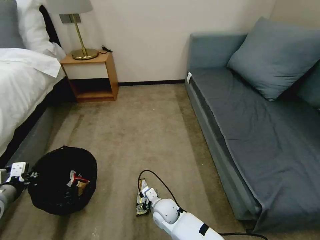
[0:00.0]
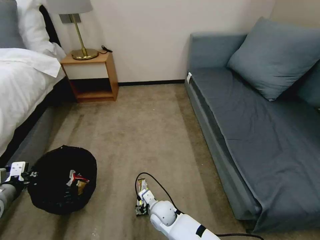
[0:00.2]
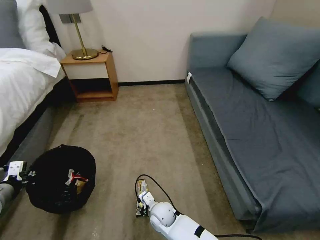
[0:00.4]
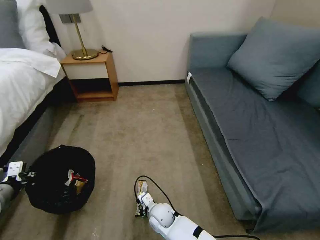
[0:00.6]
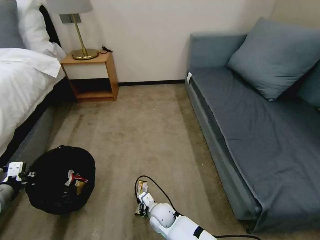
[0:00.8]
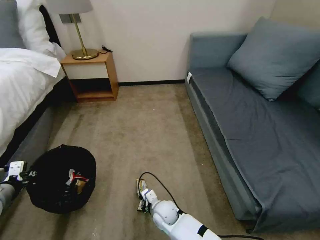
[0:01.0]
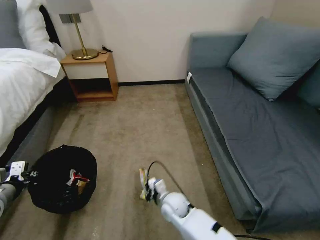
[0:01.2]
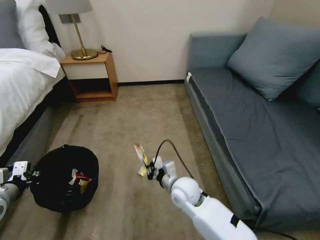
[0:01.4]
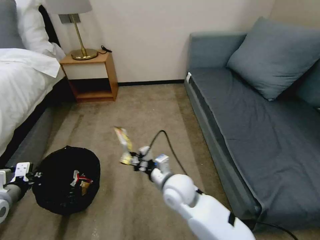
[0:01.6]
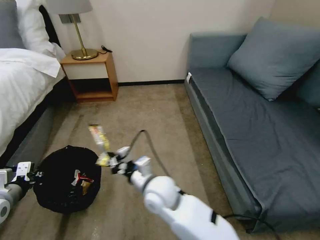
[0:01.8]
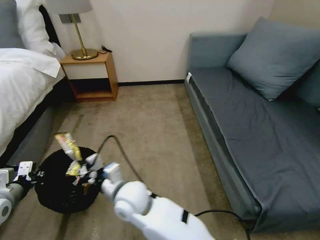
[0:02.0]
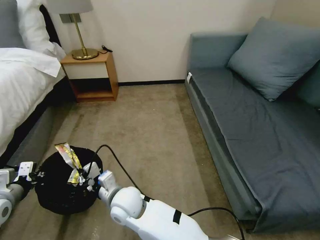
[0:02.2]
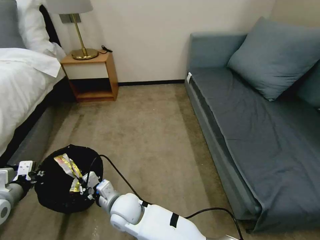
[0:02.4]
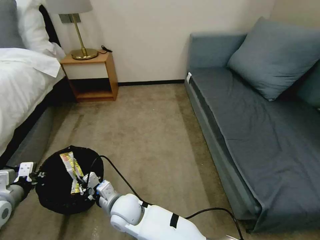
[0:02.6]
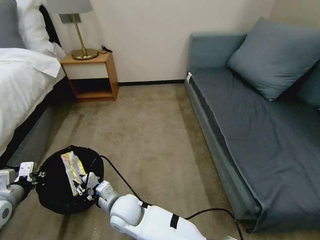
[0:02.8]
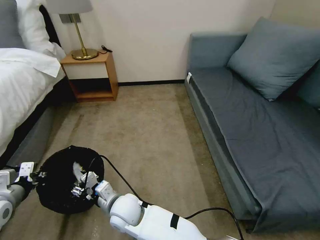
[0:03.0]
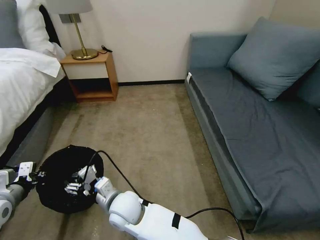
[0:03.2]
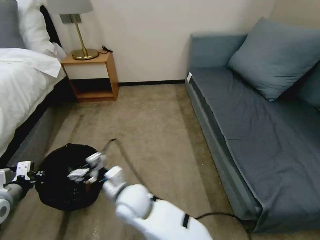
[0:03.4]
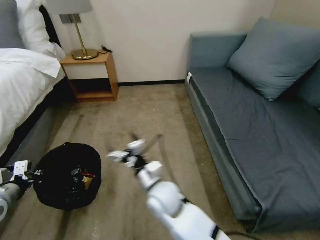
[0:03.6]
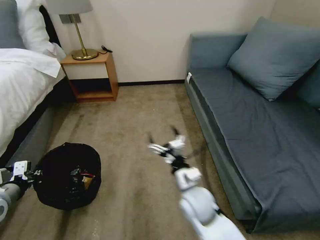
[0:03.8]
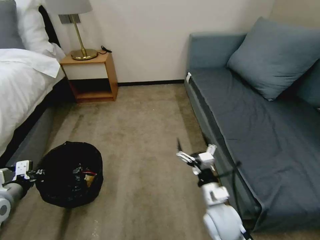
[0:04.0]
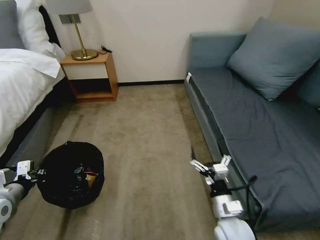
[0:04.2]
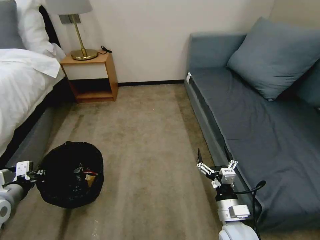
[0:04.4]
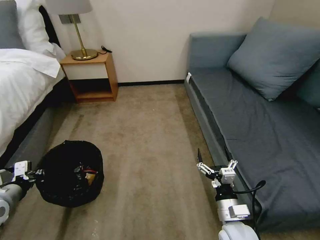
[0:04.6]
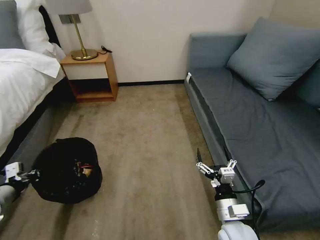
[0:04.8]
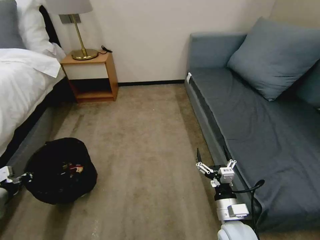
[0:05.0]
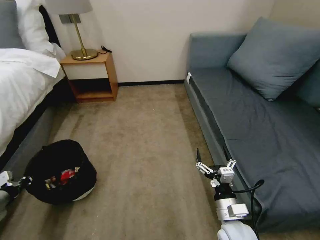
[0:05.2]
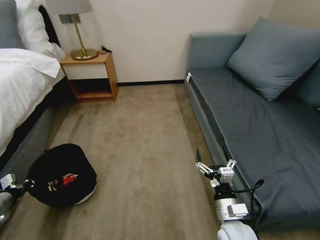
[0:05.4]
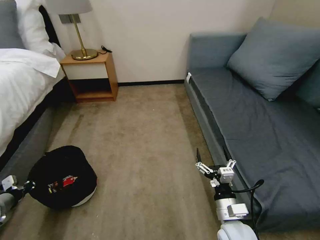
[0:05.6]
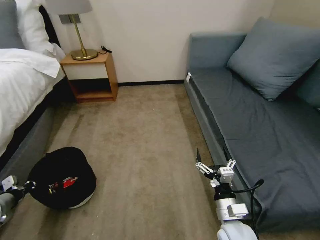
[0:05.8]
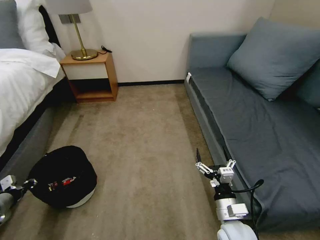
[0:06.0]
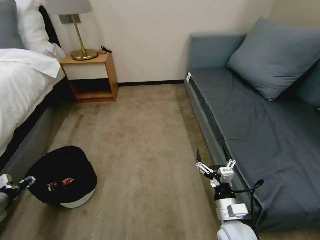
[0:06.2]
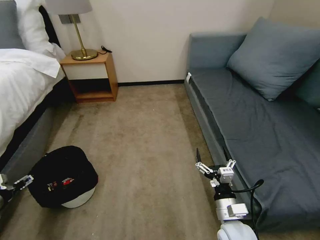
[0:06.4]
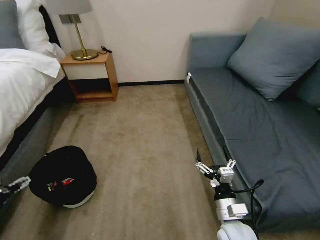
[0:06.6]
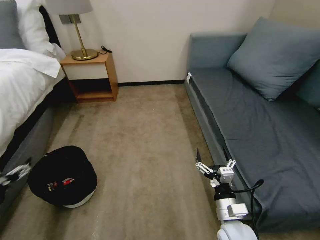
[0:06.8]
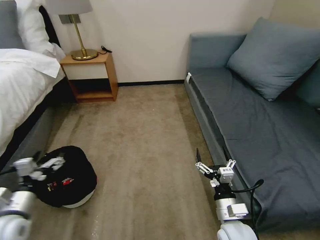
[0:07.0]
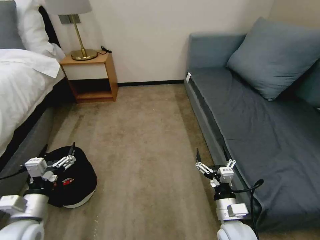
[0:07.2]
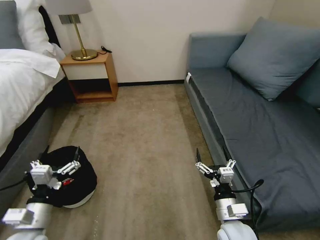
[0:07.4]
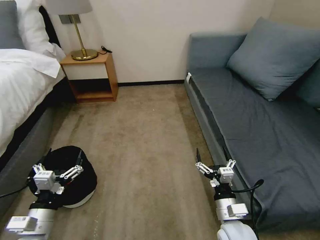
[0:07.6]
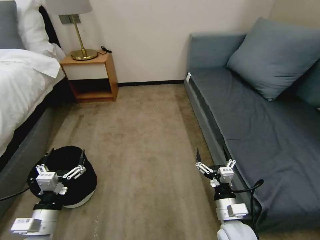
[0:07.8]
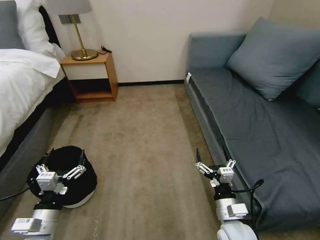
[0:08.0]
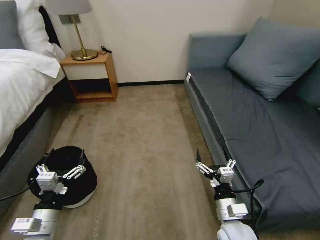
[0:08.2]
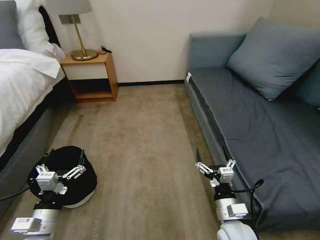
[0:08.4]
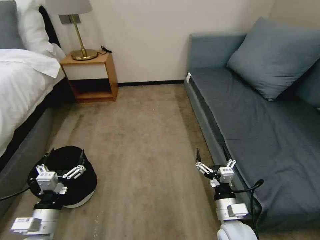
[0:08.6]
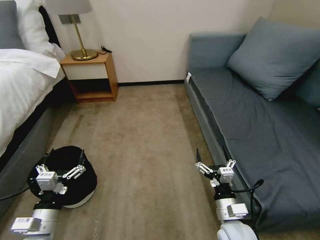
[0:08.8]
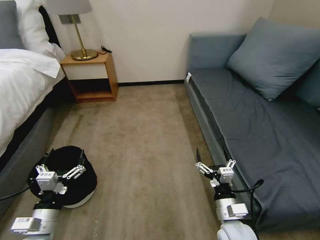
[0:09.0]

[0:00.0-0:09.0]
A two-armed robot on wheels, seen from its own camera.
Task of the whole recording: Pick up the trash bin, then pick up the garbage on the floor and place it into the trash bin.
0:00.0 to 0:01.6: The right gripper goes approximately 20 cm upward, and closes up.
0:01.6 to 0:03.0: The right gripper heads to the left, covering approximately 15 cm, and opens up.
0:03.0 to 0:04.4: The right gripper shifts approximately 35 cm to the right, and opens.
0:04.4 to 0:06.0: The left gripper shifts approximately 10 cm to the left and downward.
0:06.0 to 0:07.6: The left gripper shifts roughly 20 cm to the right, and opens up.
0:07.6 to 0:09.0: The two grippers keep their place.
